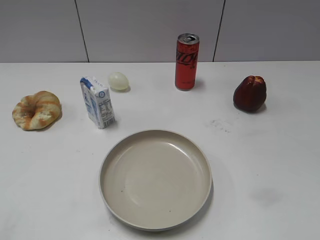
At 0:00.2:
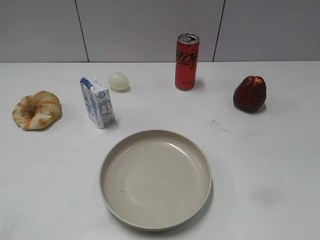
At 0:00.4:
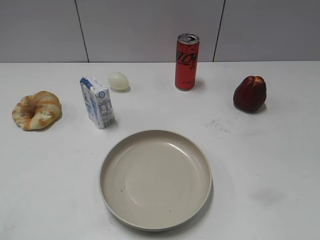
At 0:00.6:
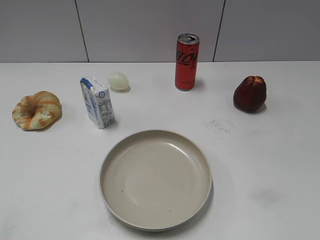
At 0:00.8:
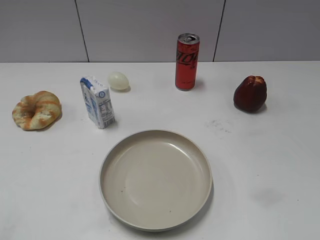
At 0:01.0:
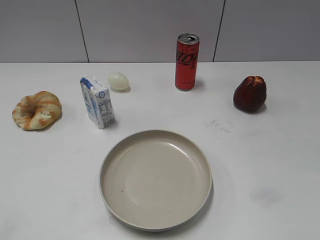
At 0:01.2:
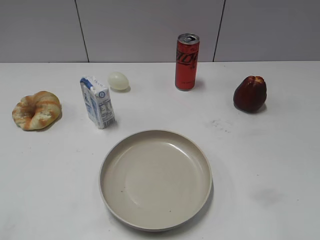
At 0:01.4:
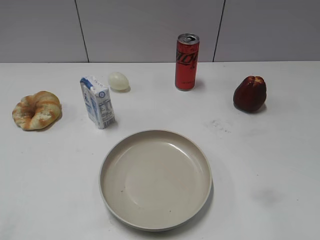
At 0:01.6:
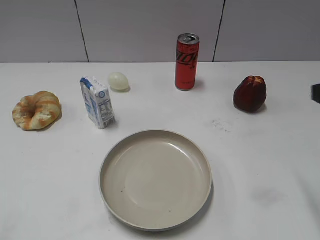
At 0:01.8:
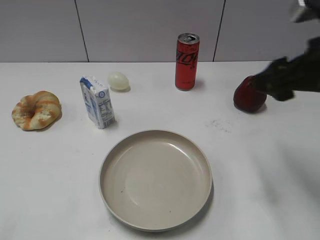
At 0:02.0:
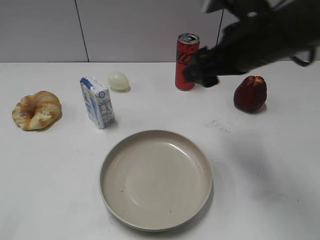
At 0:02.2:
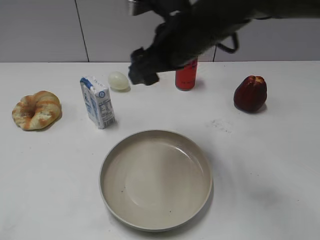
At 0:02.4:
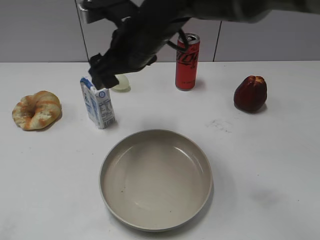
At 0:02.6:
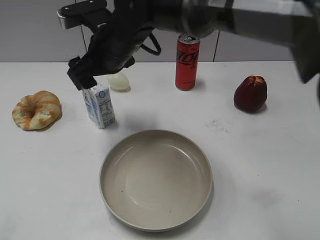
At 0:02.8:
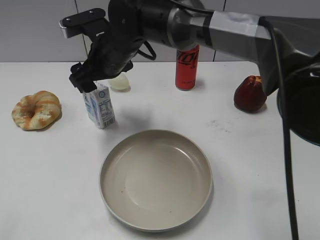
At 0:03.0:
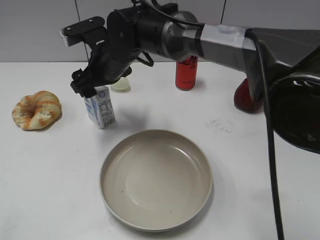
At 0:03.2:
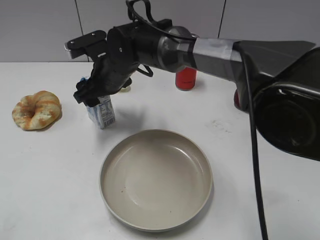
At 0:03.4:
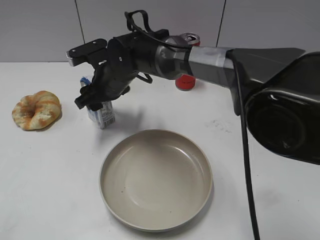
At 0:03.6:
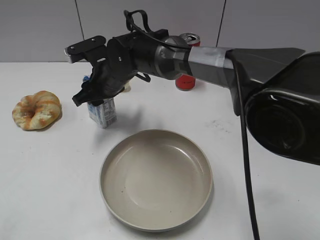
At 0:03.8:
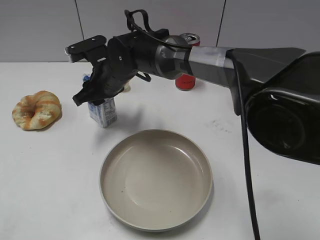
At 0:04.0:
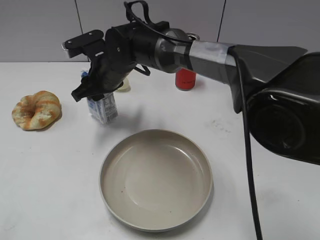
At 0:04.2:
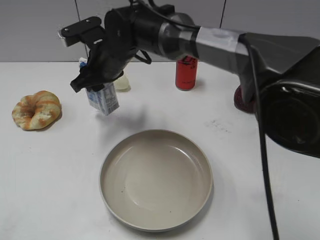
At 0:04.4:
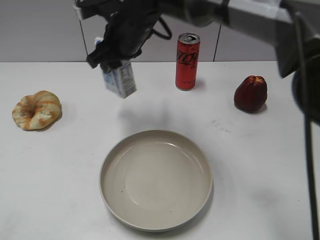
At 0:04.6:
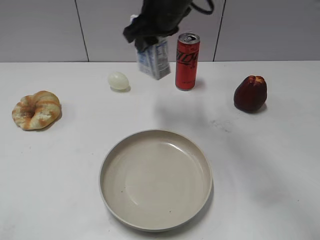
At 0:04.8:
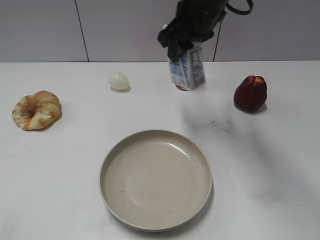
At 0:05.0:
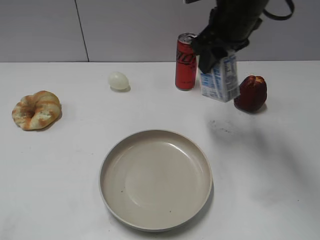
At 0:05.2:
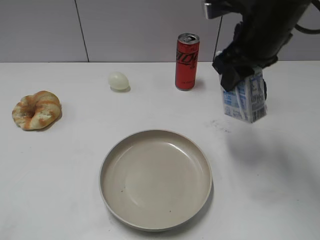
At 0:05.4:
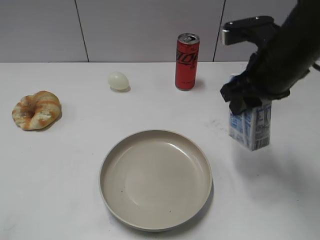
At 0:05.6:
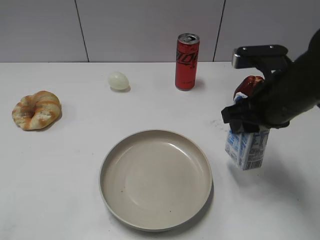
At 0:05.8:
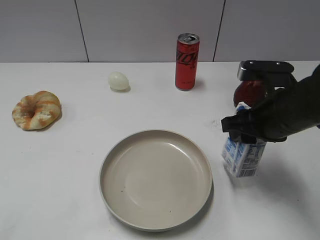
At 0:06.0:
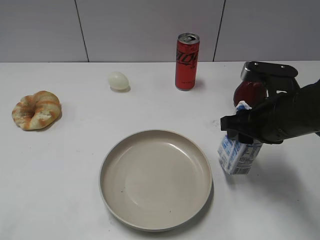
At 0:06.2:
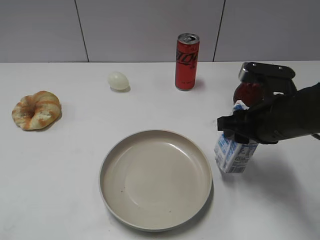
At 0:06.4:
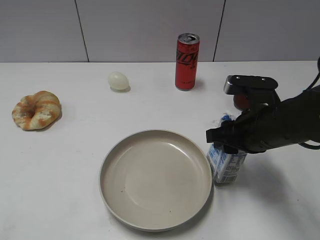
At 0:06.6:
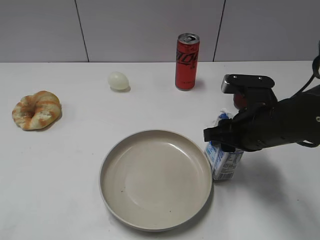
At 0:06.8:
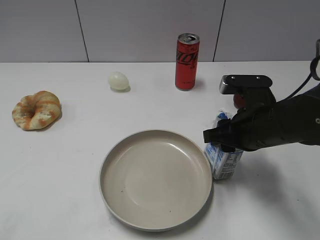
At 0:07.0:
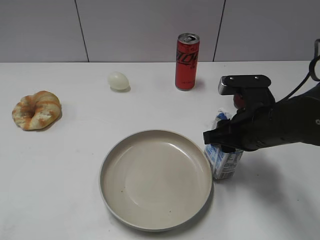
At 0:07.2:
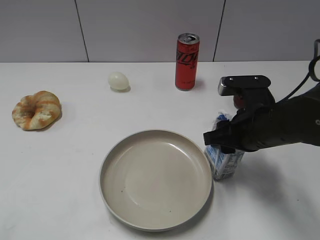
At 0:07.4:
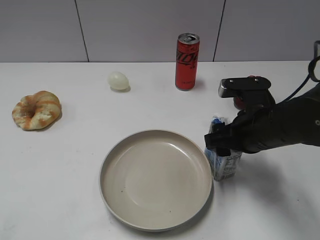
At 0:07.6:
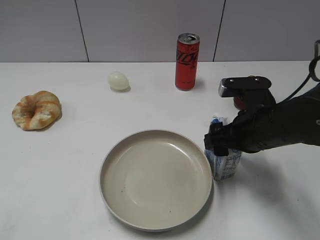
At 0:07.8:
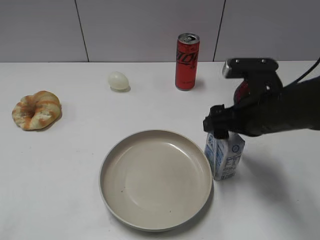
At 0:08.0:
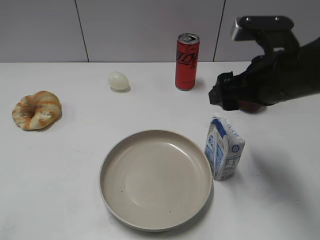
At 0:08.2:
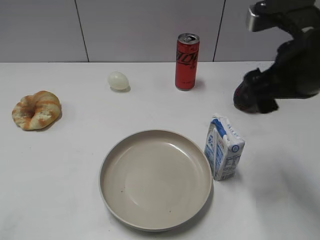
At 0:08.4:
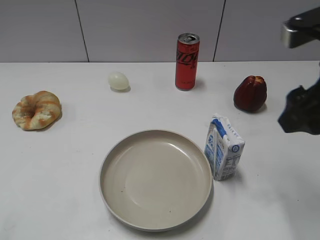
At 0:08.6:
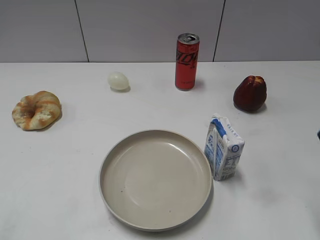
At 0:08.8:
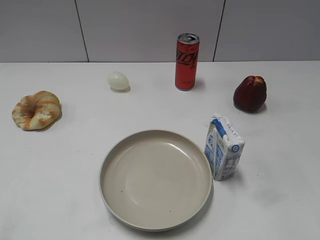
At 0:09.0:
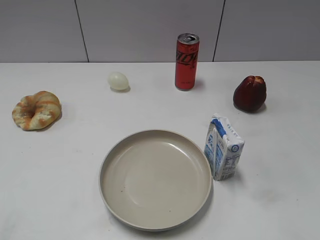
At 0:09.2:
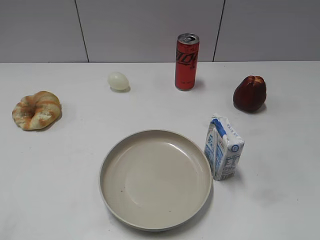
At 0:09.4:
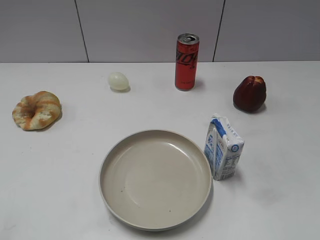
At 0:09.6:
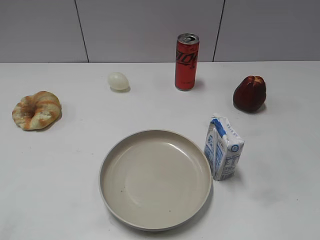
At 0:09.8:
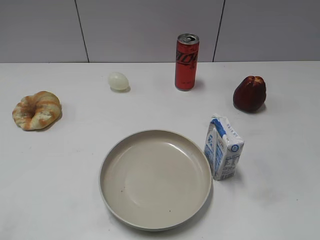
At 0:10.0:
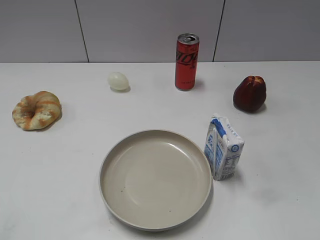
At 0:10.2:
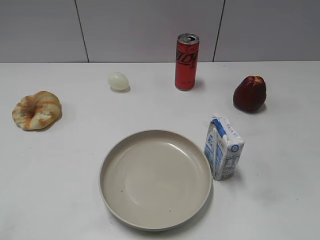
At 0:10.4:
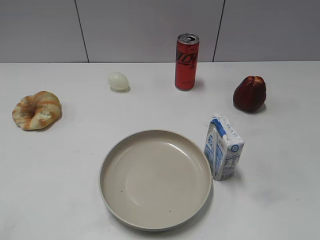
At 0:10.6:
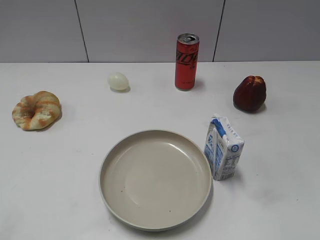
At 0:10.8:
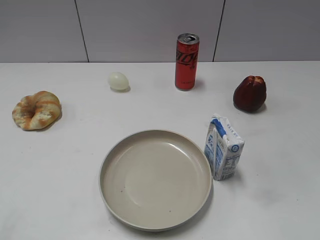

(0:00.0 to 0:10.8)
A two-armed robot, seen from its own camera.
Step, 0:01.0 - 0:03.8: Grasp the milk with right gripper.
Step, 0:04.0 - 0:07.8: Place the milk on the table with right gripper.
0:01.6 - 0:03.0: The right gripper shifts about 40 cm to the left and forward.
0:03.0 - 0:04.6: The right gripper shifts roughly 15 cm to the right and upward, and closes its fingers.
0:04.6 - 0:06.2: The right gripper heads to the right, backward and downward, covering approximately 25 cm.
0:06.2 - 0:07.8: The right gripper opens its fingers.
0:07.8 - 0:09.2: The right gripper shifts roughly 25 cm backward, to the right and upward.

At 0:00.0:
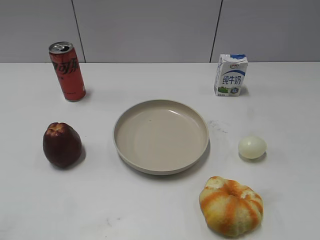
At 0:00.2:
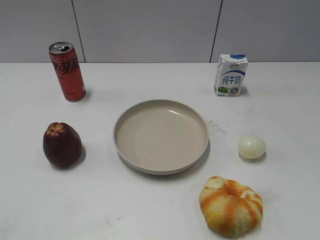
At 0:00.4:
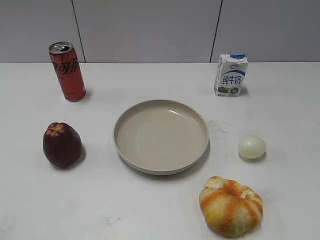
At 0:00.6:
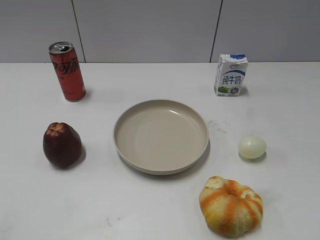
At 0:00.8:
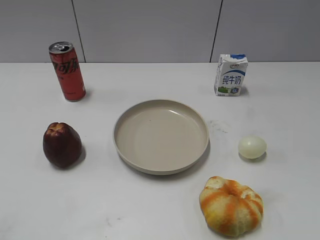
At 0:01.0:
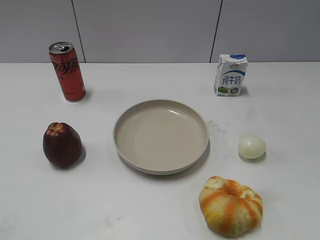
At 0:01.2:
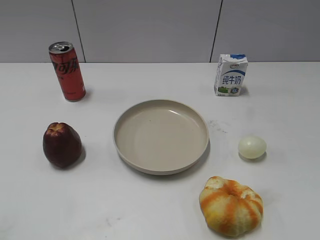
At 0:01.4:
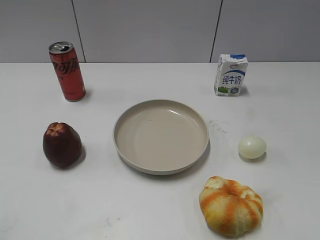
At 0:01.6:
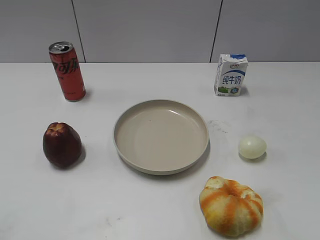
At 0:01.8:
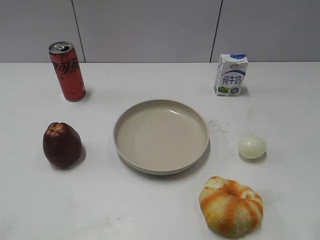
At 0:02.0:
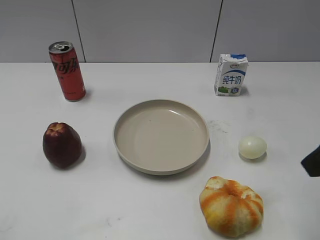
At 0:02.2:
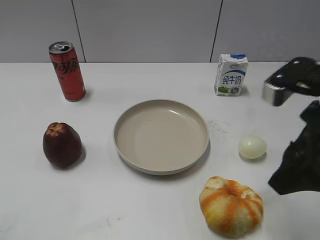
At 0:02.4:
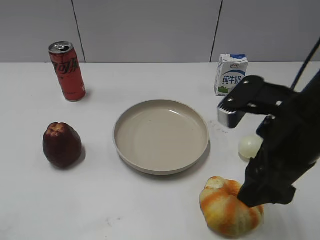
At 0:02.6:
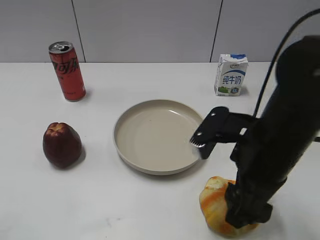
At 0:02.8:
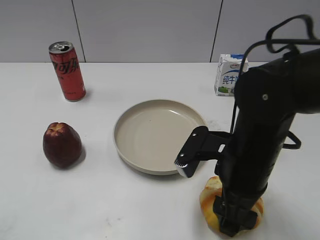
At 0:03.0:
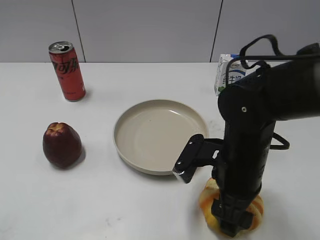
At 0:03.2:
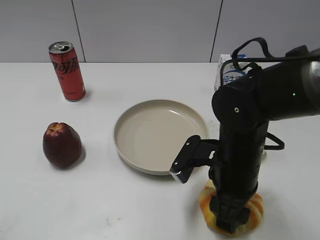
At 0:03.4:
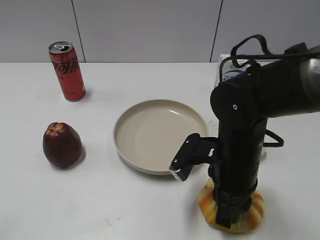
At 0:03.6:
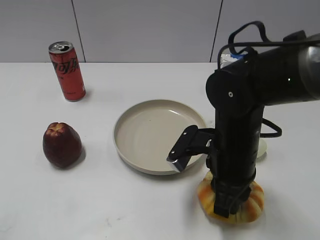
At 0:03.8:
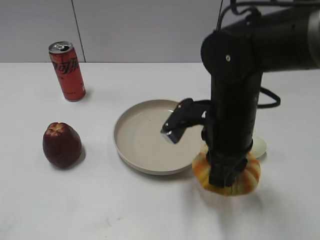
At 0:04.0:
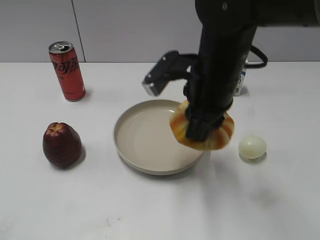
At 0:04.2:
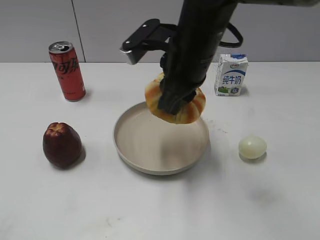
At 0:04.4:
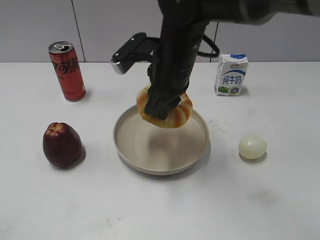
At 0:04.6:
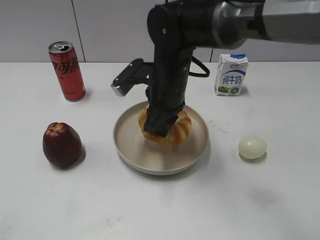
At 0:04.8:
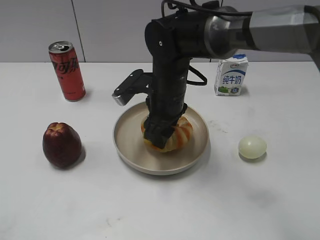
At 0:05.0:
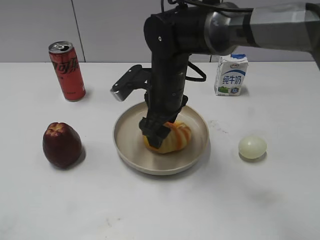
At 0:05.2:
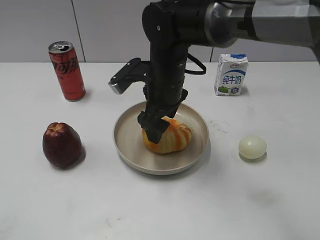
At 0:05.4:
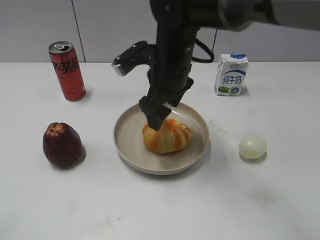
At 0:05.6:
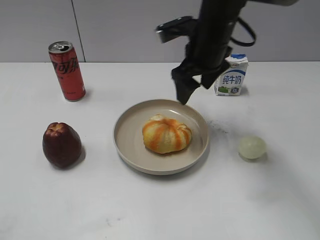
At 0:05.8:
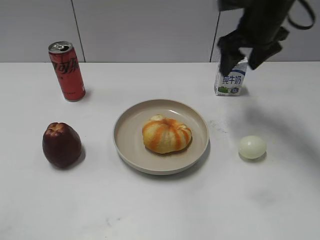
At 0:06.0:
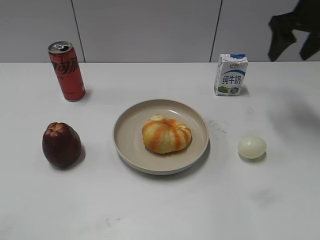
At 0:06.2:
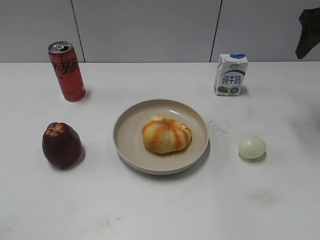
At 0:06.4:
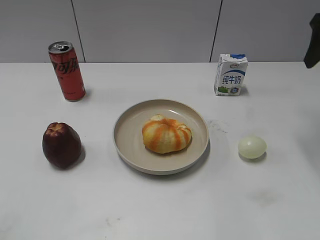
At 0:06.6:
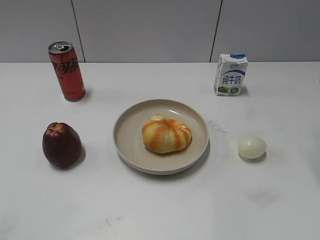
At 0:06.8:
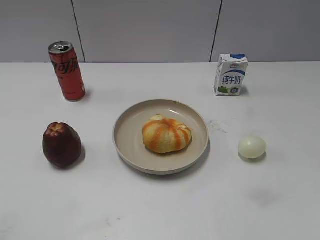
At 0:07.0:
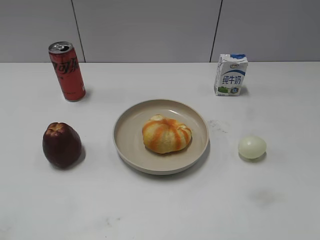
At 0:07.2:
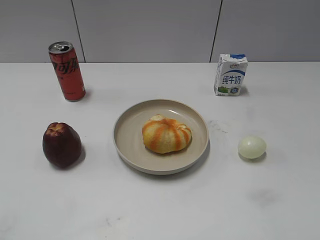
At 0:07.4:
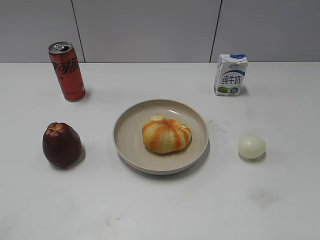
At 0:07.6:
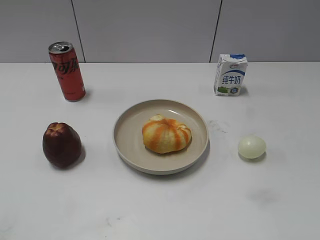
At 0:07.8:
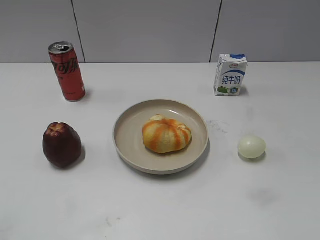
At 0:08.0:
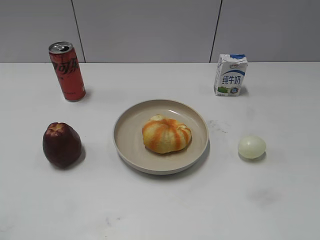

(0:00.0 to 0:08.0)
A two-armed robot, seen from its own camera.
Step, 0:01.0 - 0:03.2: Grasp the round bread with right gripper.
Step, 0:03.6 - 0:05.4: Place the round bread on the plate with right gripper.
0:01.6 - 0:03.2: The right gripper moves to the left, downward and forward, about 30 cm.
0:03.2 - 0:04.8: The right gripper goes about 15 cm forward and to the left, reaches some 10 cm upward, then returns, and closes, then opens again.
0:04.8 - 0:06.4: The right gripper travels to the right and upward by roughly 35 cm.
0:06.4 - 0:08.0: The right gripper shifts roughly 35 cm backward.
